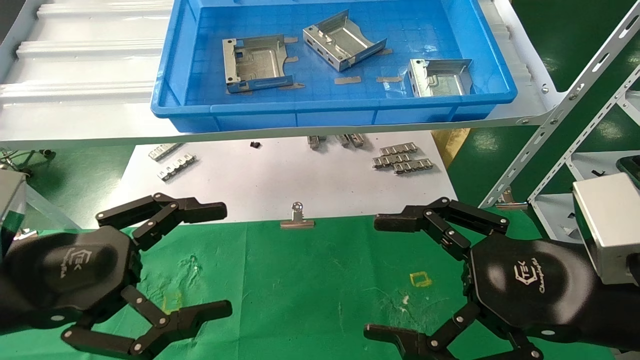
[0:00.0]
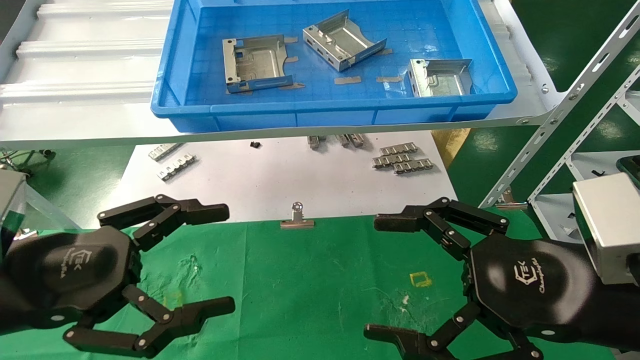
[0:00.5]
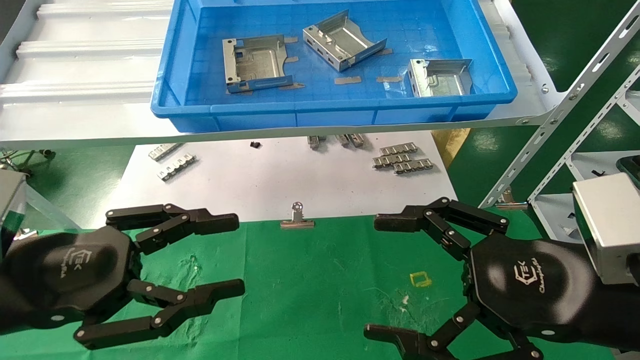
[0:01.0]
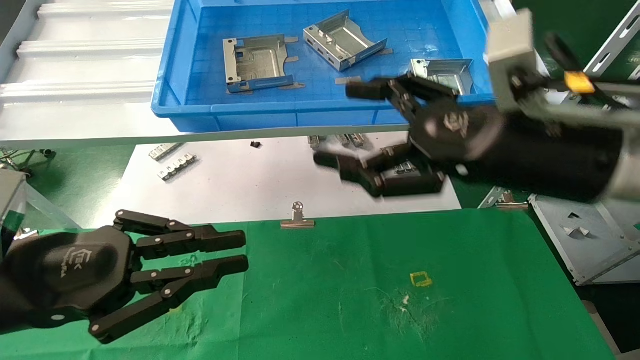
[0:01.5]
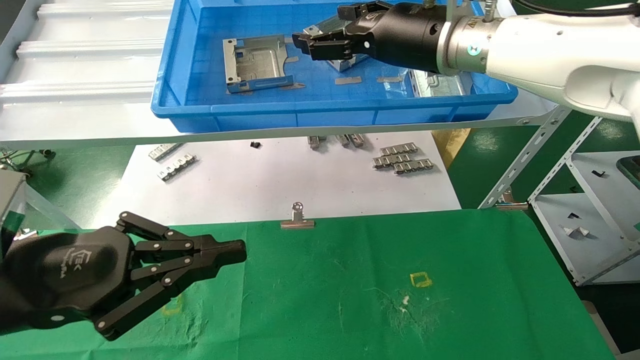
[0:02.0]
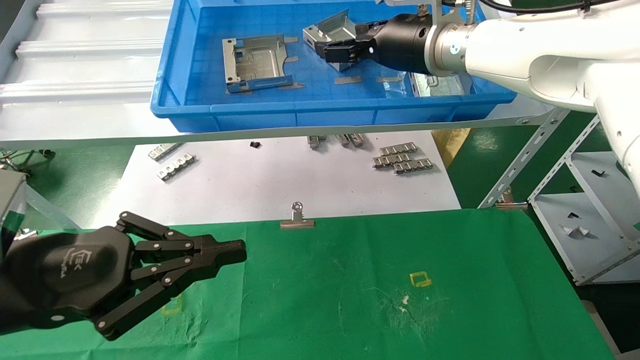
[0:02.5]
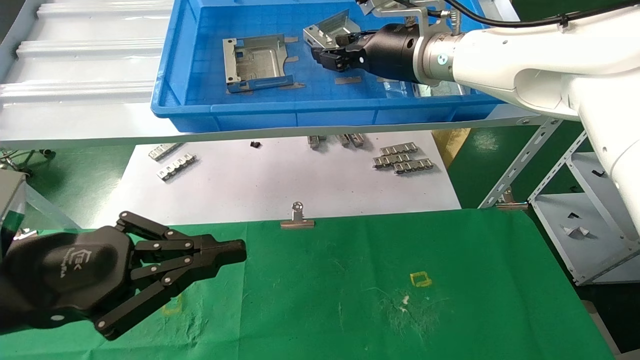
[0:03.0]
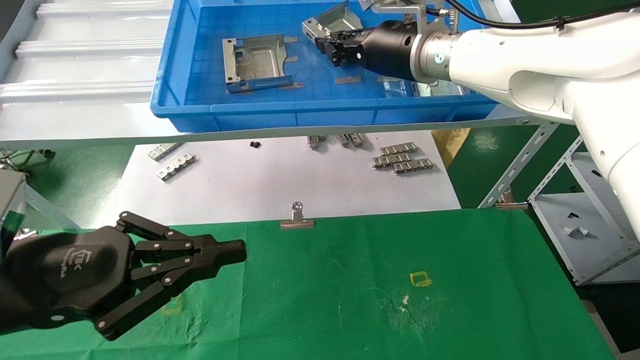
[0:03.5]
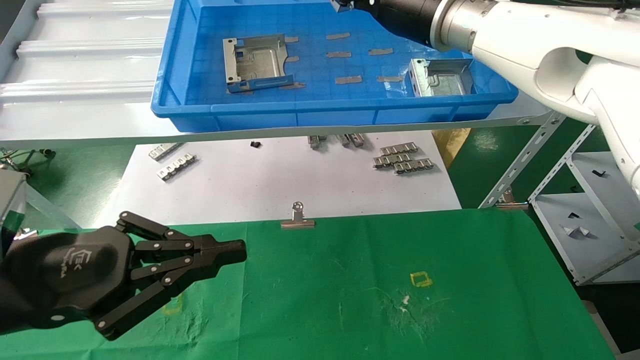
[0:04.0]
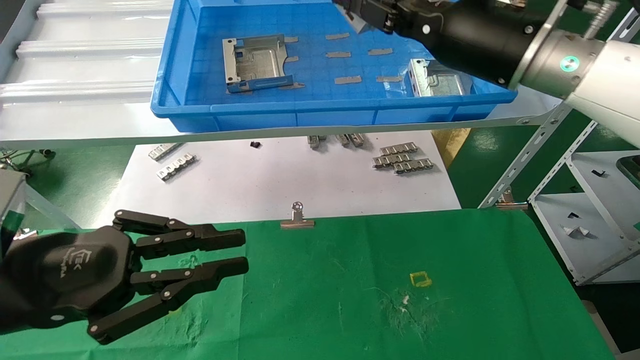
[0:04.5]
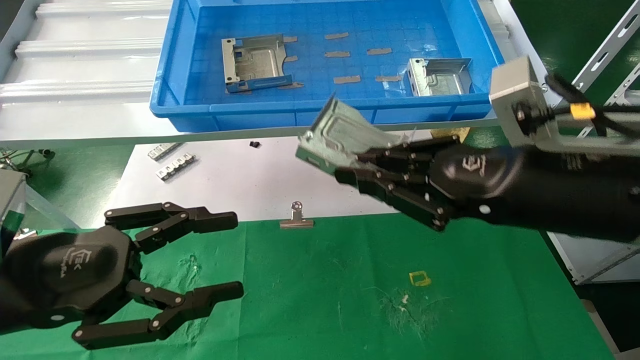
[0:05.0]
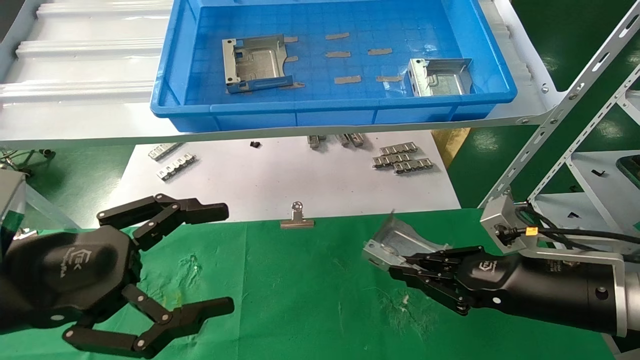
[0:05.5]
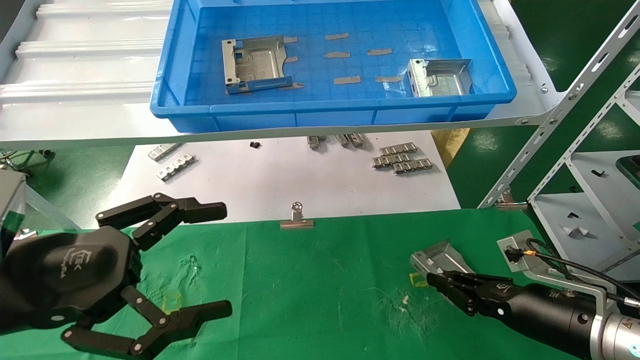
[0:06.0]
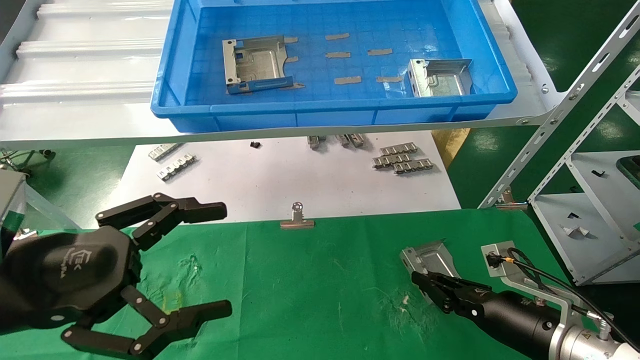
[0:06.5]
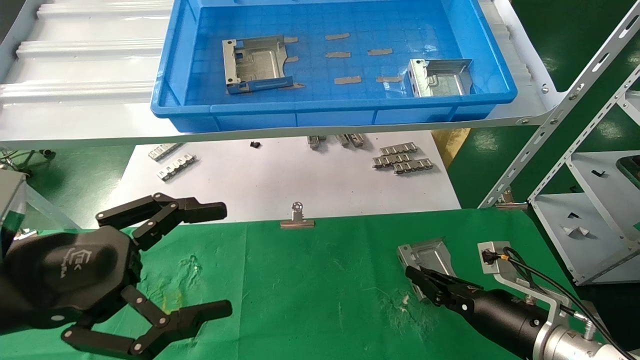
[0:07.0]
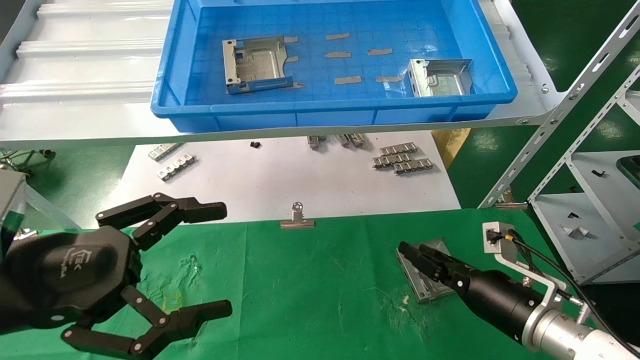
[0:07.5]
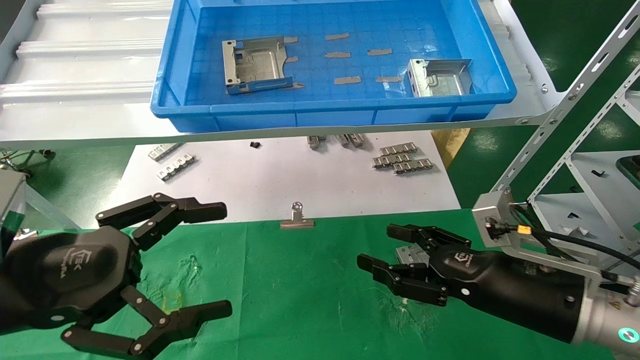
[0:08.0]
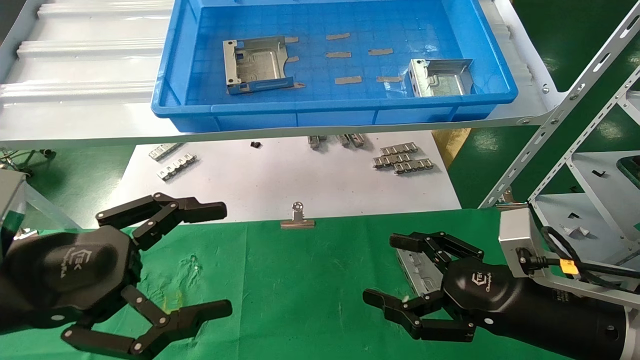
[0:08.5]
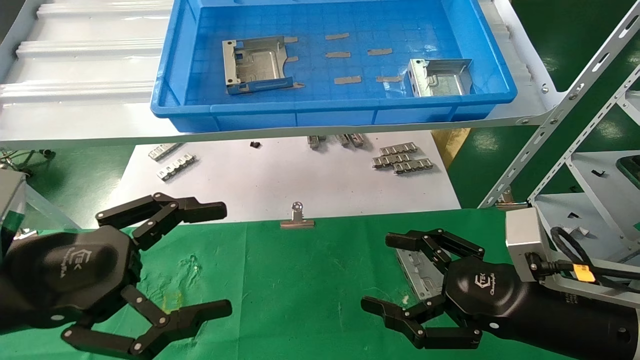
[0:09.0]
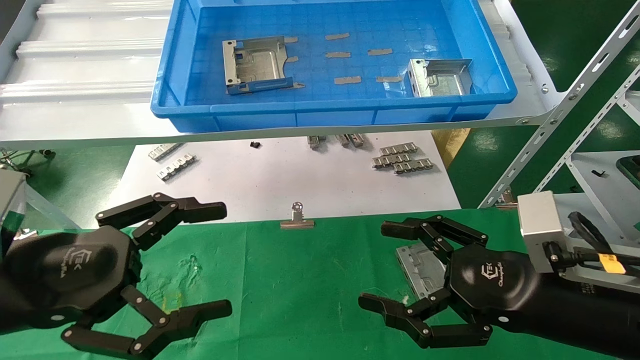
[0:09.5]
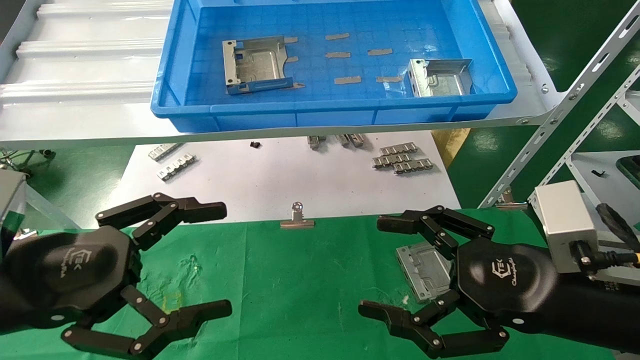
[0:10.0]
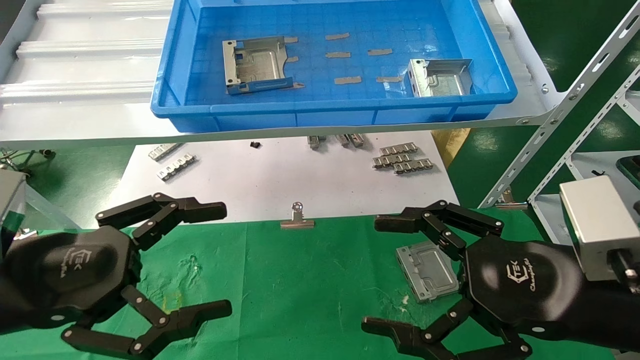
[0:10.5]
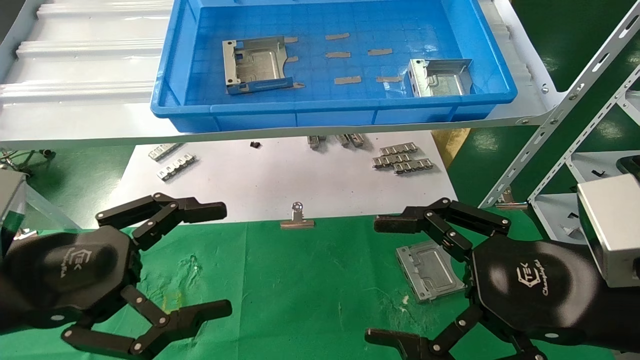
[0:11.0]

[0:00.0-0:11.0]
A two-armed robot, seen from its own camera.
Task of the whole recording: use the mechanical arm to pick up the parts and place them on the table.
Step, 0:01.5 to 0:04.5: Pick up the hard drive bracket from the feeding area.
Step, 0:05.0 to 0:08.0: Place the hard drive bracket into the box.
0:00.0 to 0:02.0: The right gripper is displaced forward, upward and to the left by roughly 30 cm. Meanwhile the left gripper closes up.
0:02.0 to 0:03.5: The right gripper closes up.
0:03.5 to 0:05.5: The right gripper travels downward, backward and to the right by some 35 cm; the left gripper opens.
0:05.5 to 0:07.5: The right gripper shifts about 10 cm downward and forward.
0:07.5 to 0:09.0: The right gripper shifts about 10 cm backward and upward, and opens up.
0:09.0 to 0:11.0: The right gripper moves upward and backward, about 10 cm.
